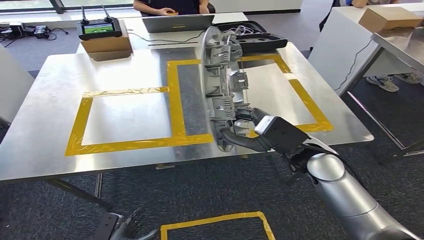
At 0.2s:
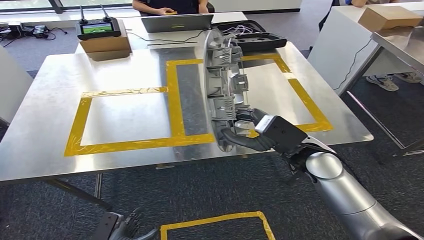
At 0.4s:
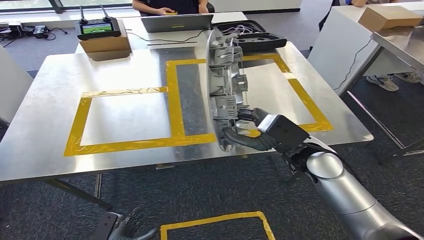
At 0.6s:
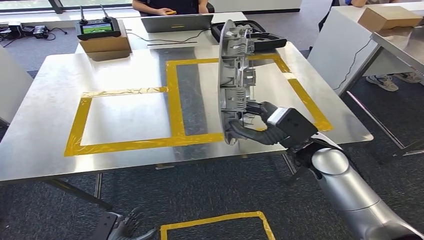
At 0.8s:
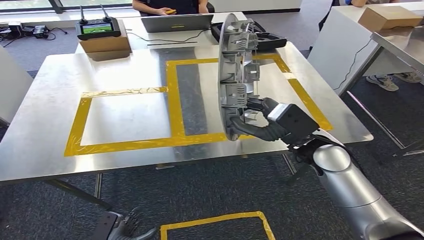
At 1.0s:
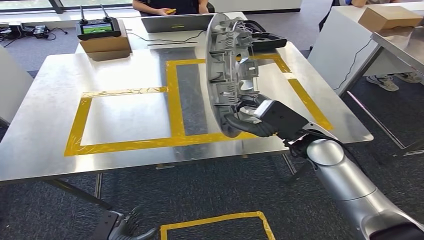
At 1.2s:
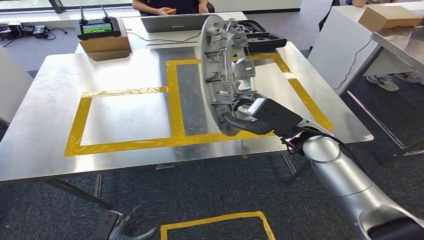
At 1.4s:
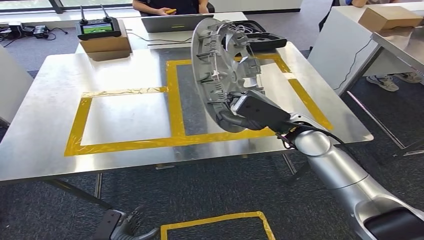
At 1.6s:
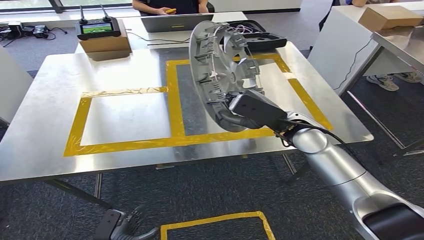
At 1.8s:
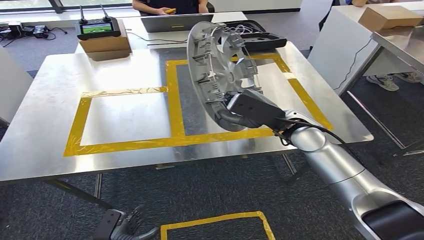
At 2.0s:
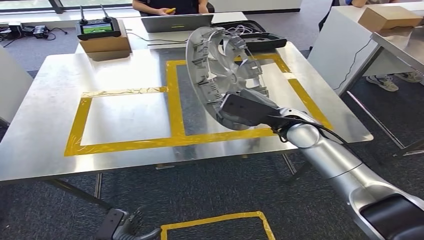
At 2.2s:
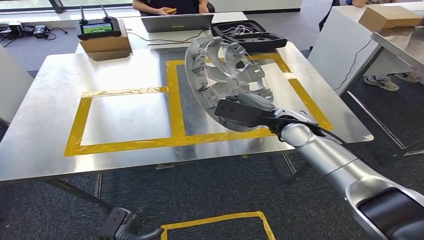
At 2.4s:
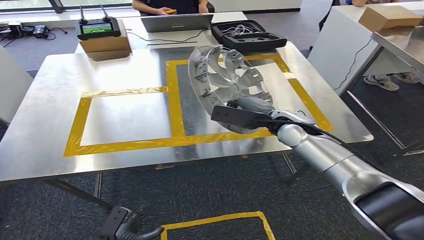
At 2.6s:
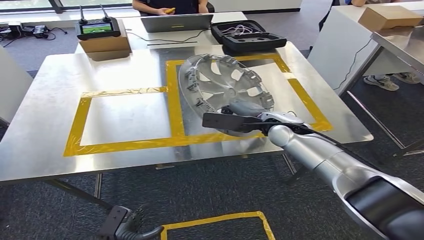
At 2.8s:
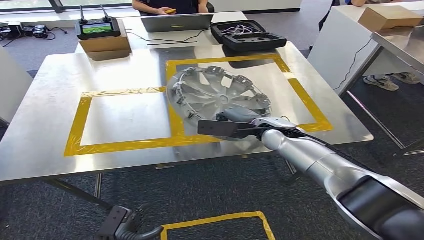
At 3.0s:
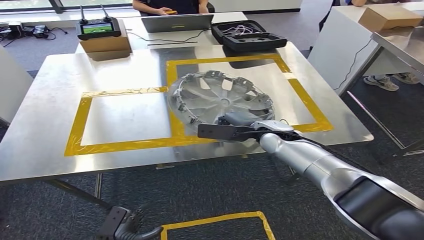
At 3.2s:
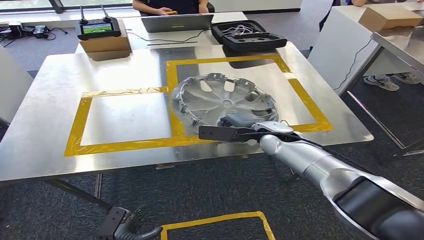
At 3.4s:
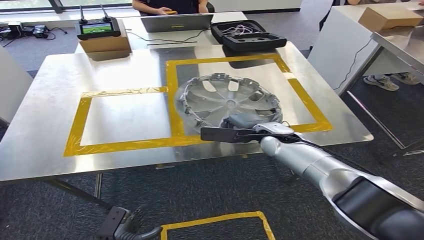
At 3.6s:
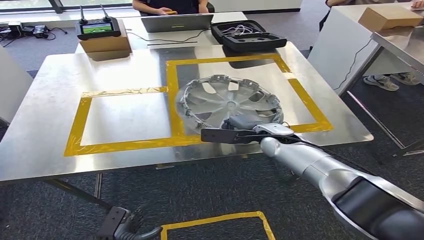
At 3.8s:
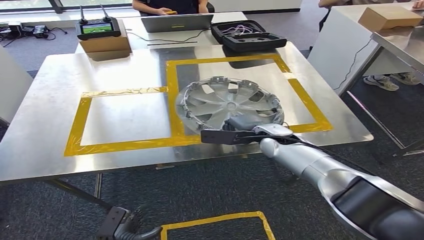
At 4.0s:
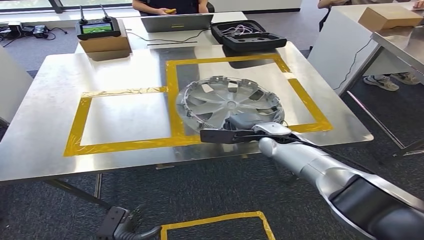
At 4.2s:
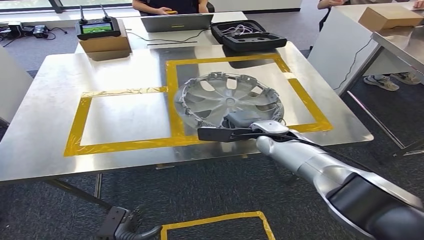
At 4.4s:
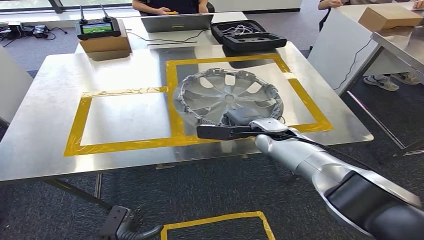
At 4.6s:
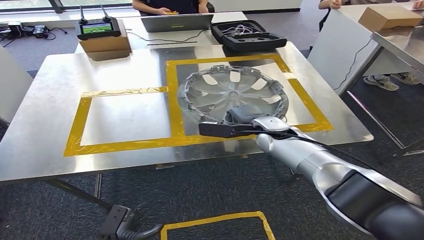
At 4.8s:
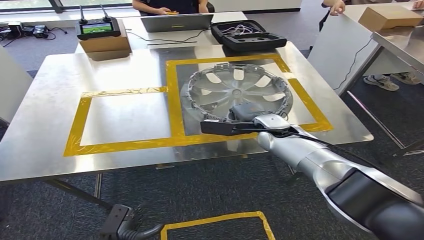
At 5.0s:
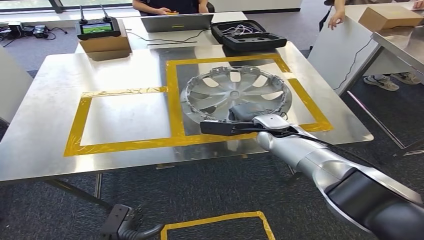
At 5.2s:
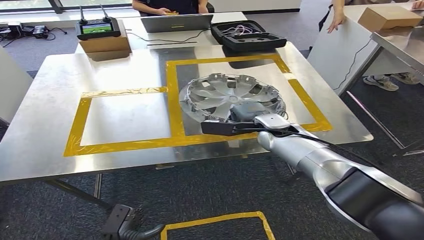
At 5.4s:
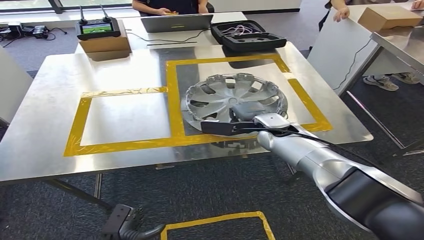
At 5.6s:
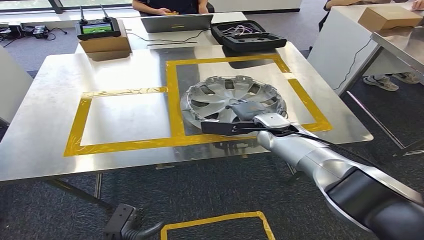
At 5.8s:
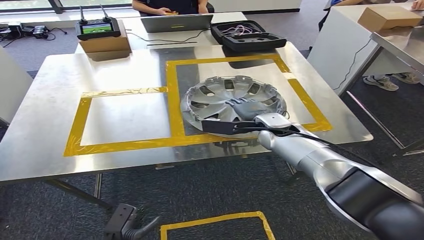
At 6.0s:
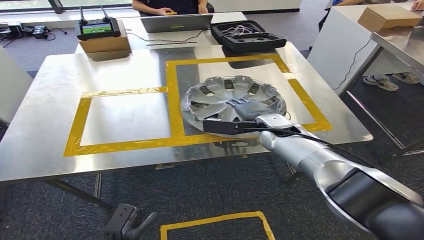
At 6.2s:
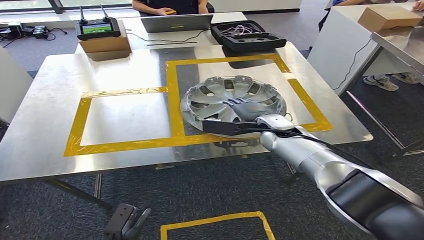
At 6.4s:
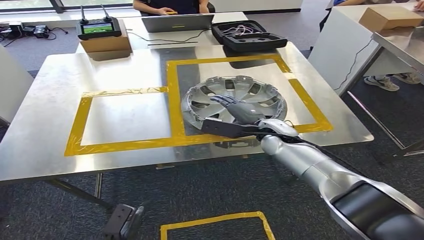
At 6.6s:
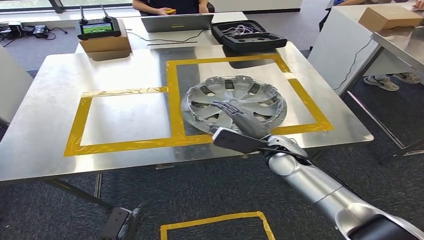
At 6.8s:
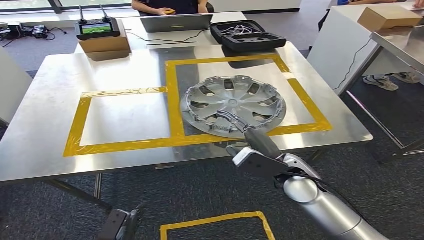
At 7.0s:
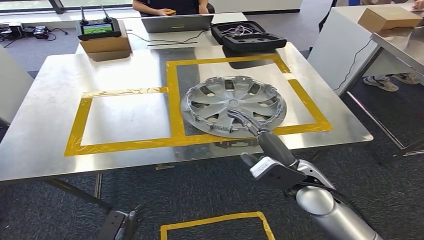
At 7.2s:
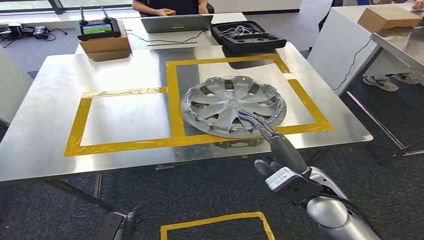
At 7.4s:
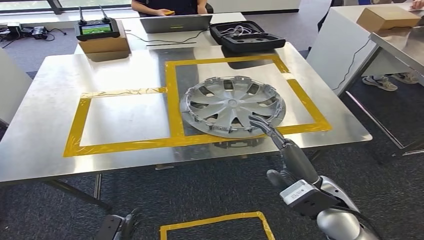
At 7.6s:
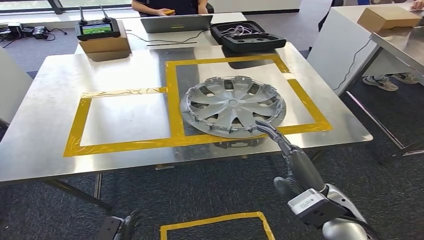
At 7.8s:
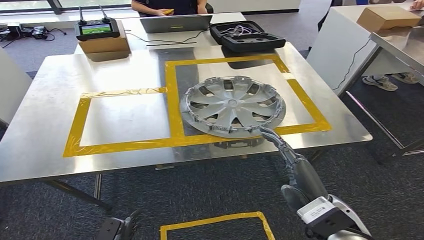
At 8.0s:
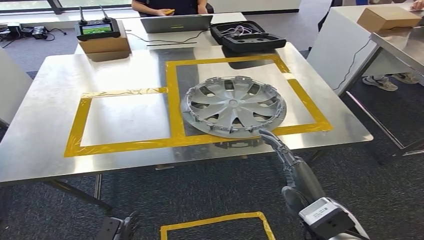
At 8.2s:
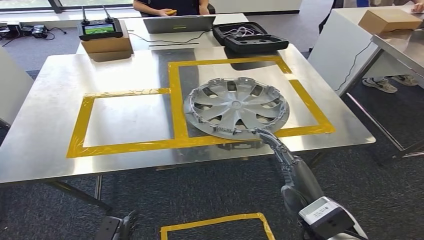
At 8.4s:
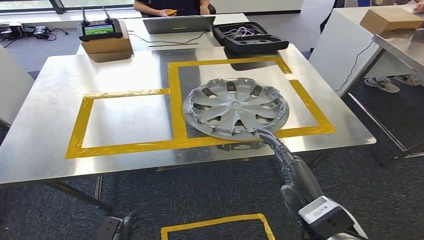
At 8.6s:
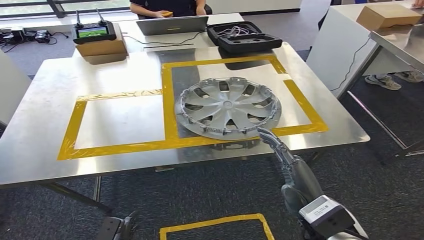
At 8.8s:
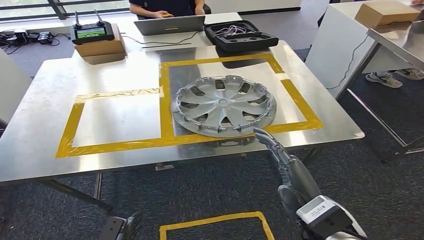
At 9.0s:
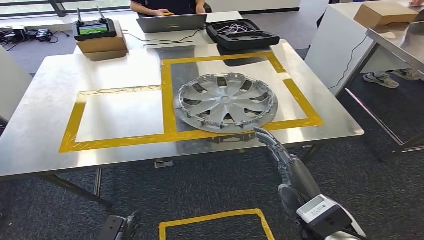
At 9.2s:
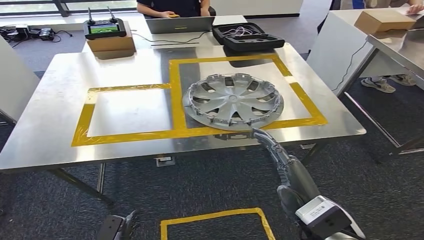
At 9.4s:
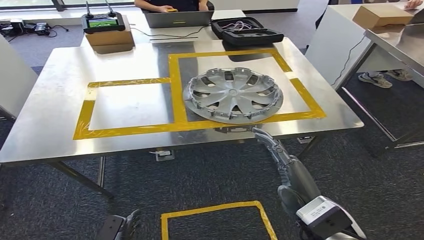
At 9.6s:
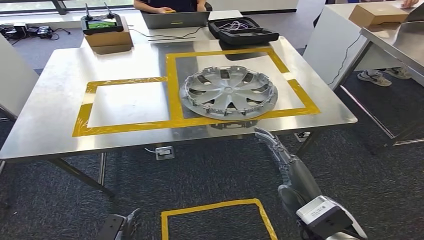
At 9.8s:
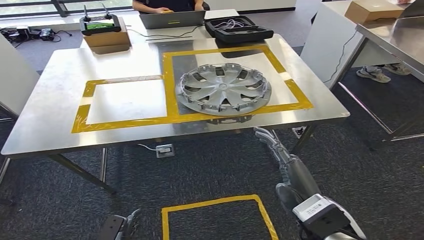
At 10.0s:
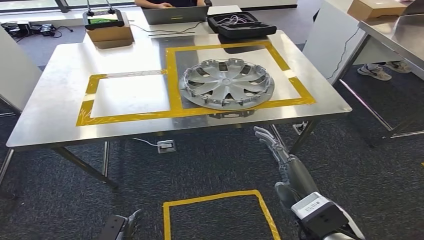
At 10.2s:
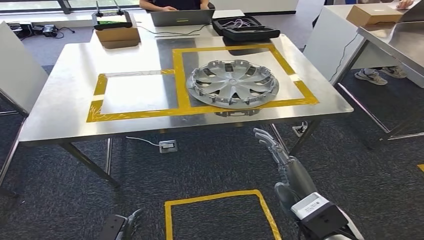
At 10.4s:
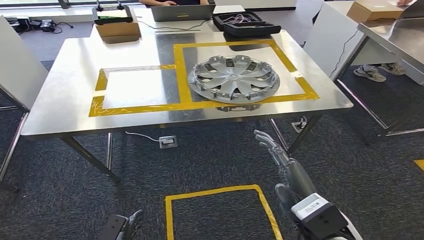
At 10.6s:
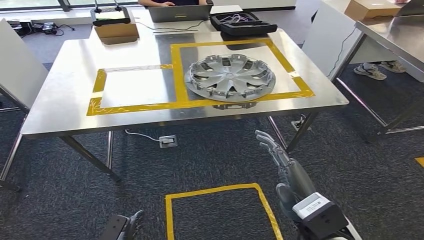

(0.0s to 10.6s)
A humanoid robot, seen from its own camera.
Step, 0.0s - 8.0s: Insert the small component into the corresponding slot on the workbench.
0.0s - 1.6s: The right hand shifts roughly 5 cm forward.
1.6s - 3.0s: The right hand goes about 5 cm downward.
3.0s - 4.6s: The hands make only small movements.
4.6s - 6.0s: Both hands stay put.
6.0s - 7.6s: The right hand travels backward by some 25 cm.

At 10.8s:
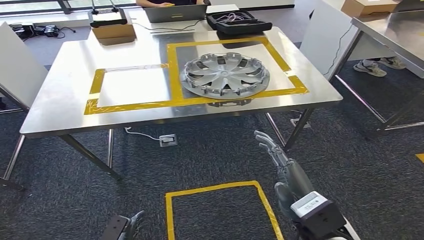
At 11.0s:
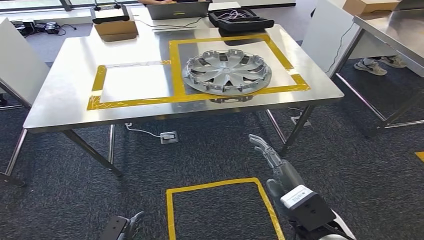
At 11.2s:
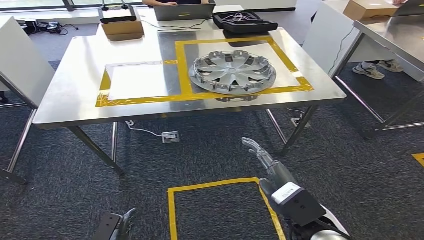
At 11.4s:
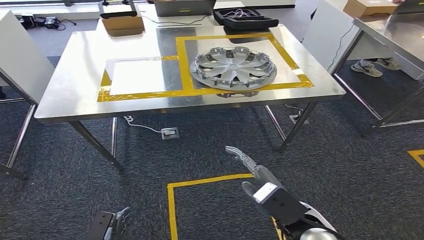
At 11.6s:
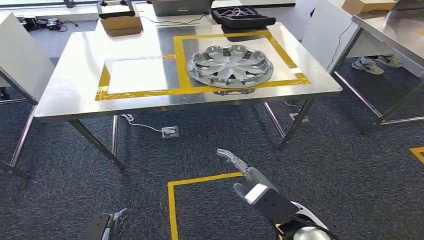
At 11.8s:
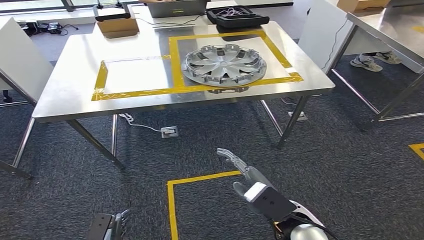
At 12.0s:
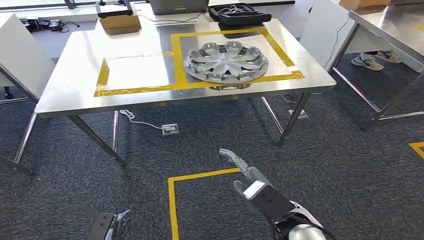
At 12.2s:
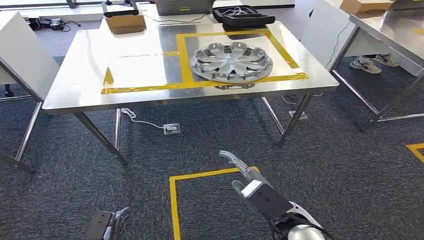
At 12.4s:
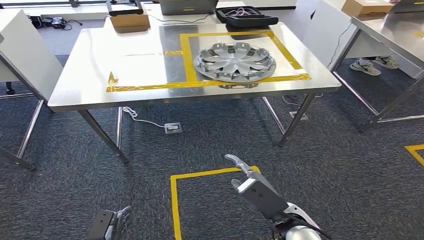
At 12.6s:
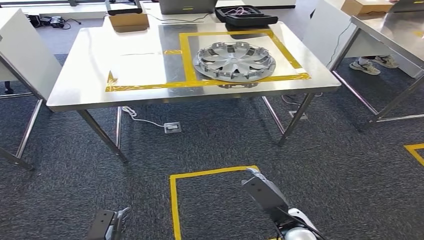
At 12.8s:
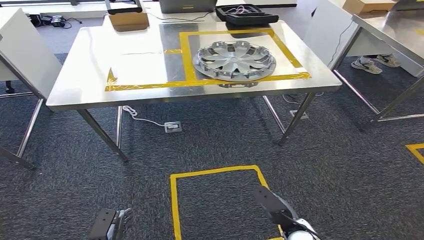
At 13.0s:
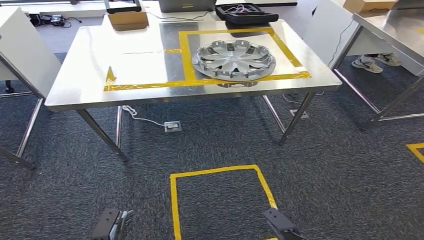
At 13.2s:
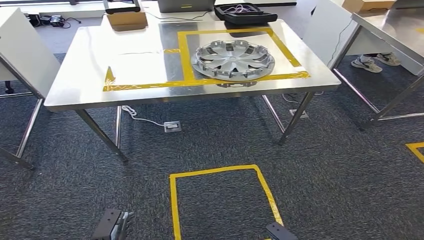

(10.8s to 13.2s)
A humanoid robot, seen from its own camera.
Step, 10.8s - 13.2s: Return to the initial position at the workbench.
